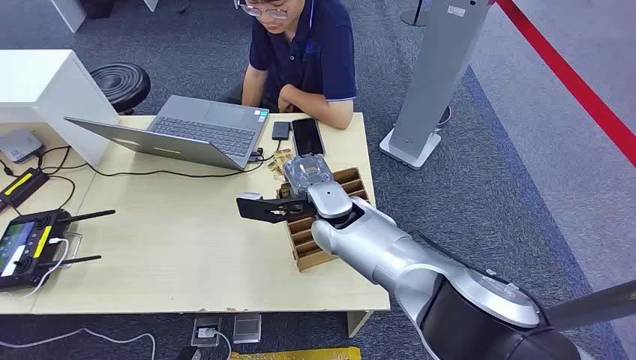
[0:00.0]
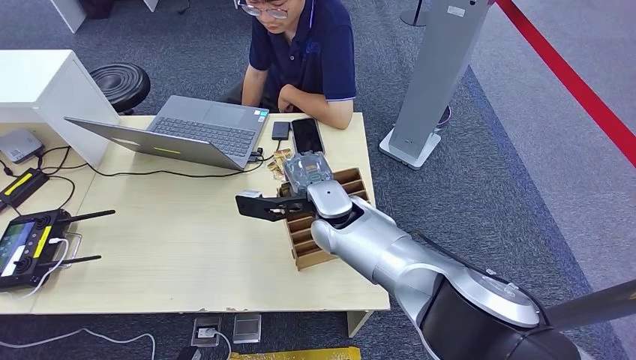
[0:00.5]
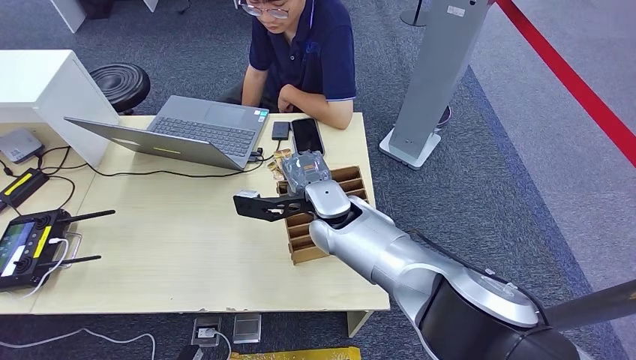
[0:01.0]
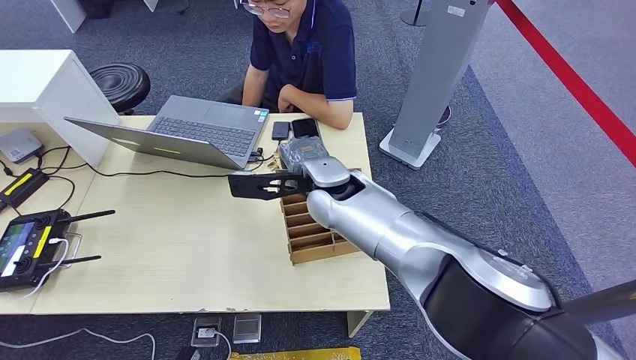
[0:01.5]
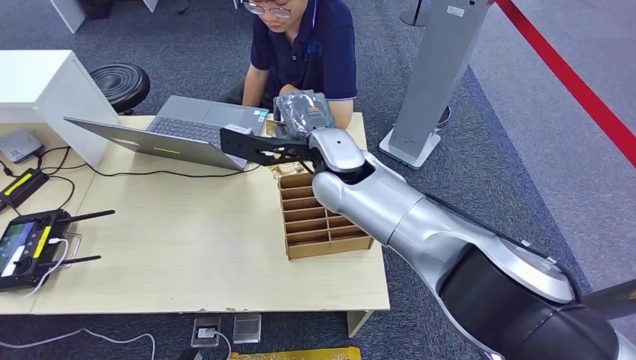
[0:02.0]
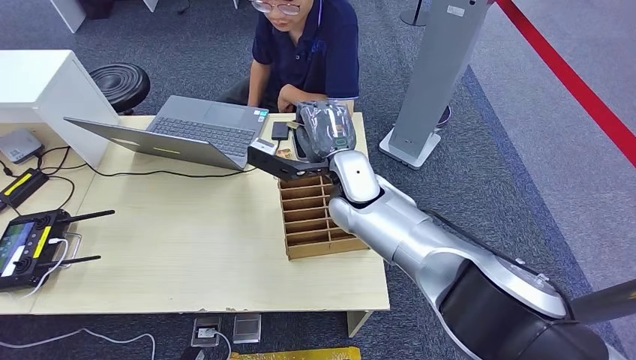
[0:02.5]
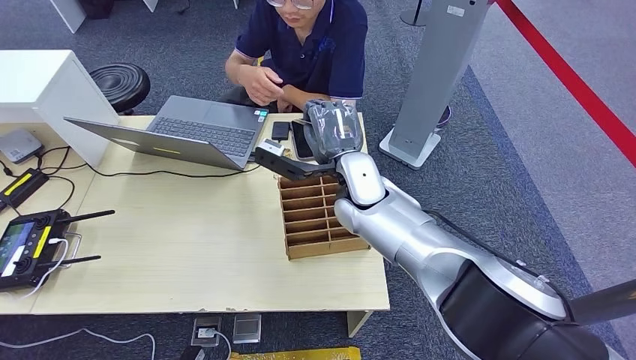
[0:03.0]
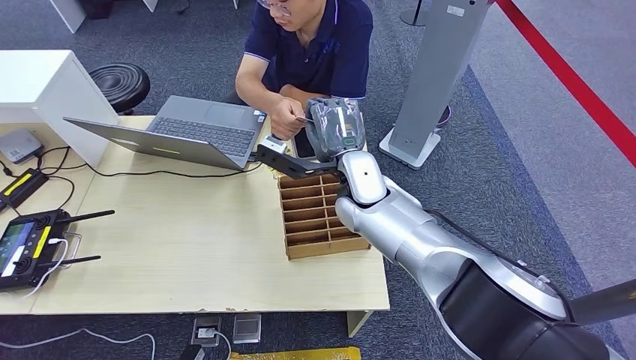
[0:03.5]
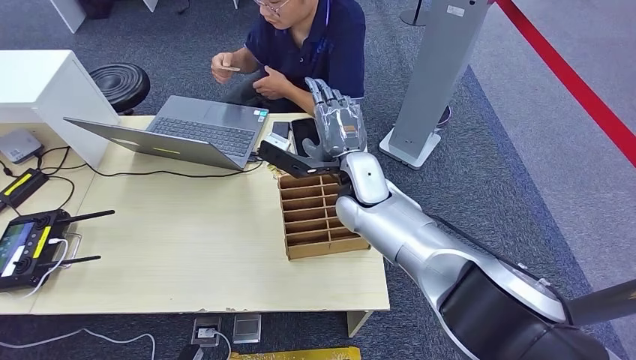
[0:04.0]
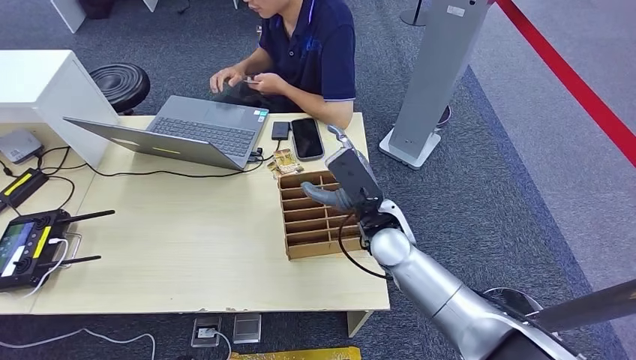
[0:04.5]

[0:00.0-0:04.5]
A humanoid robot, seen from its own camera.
Step, 0:00.0 to 0:01.5: Pick up the room card from the card holder.
Step, 0:02.5 to 0:04.5: Hand the room card to the target.
0:02.0 to 0:04.5: The right hand heads downward, to the right and backward, covering some 15 cm.

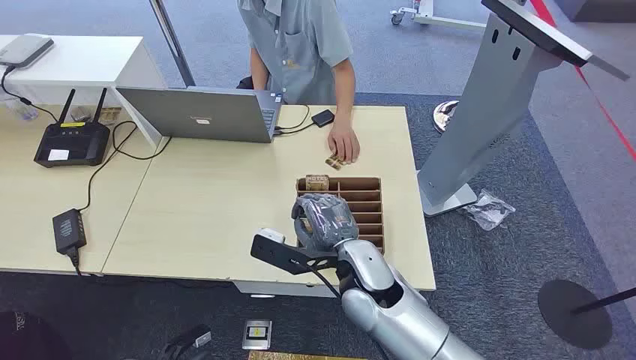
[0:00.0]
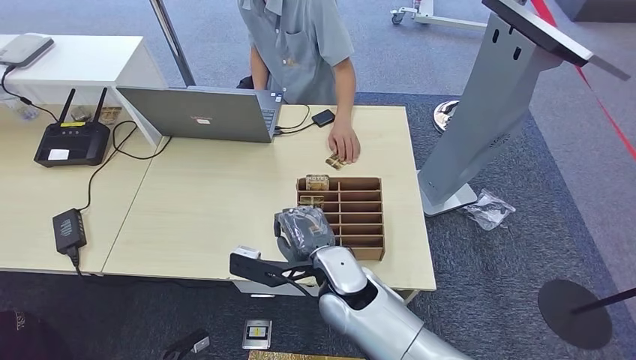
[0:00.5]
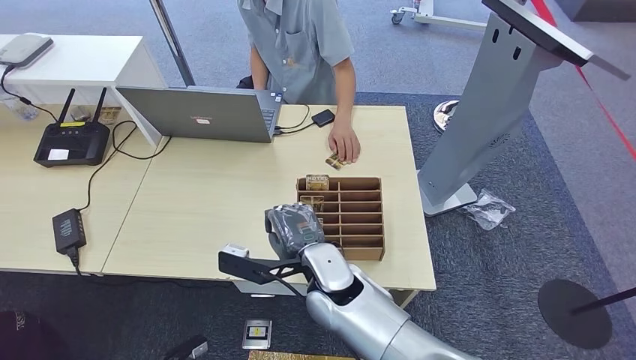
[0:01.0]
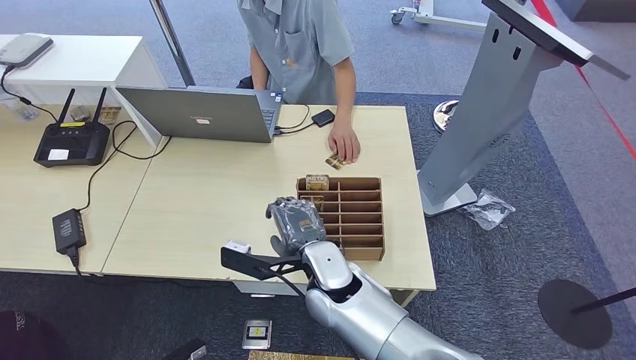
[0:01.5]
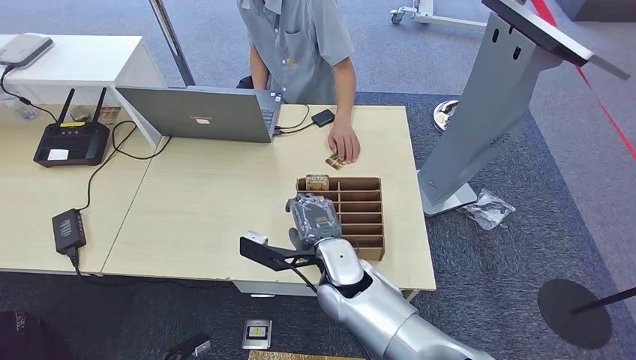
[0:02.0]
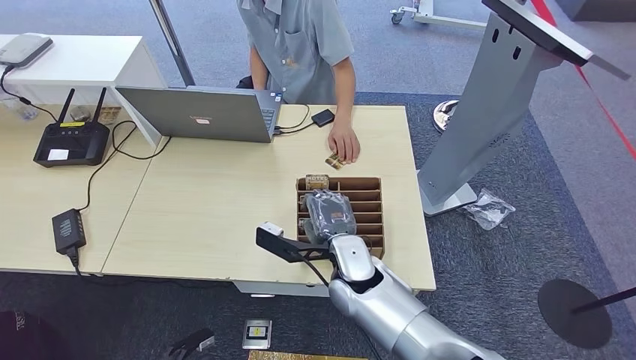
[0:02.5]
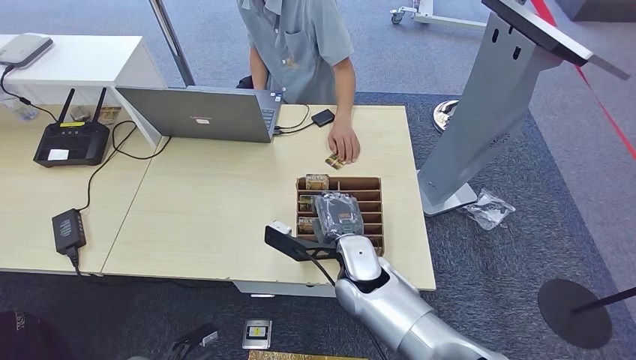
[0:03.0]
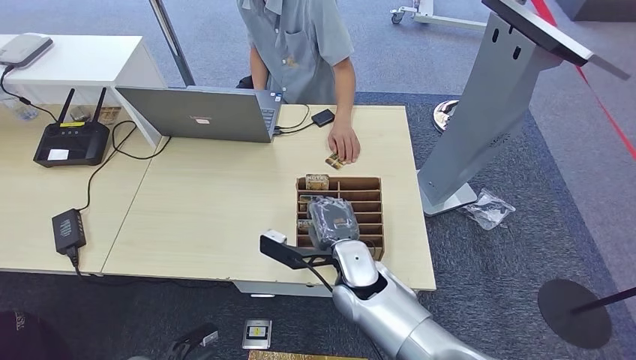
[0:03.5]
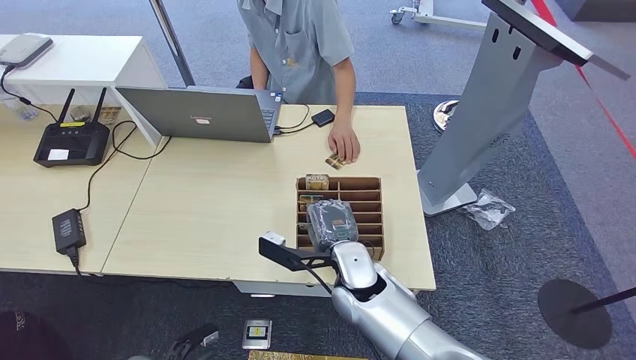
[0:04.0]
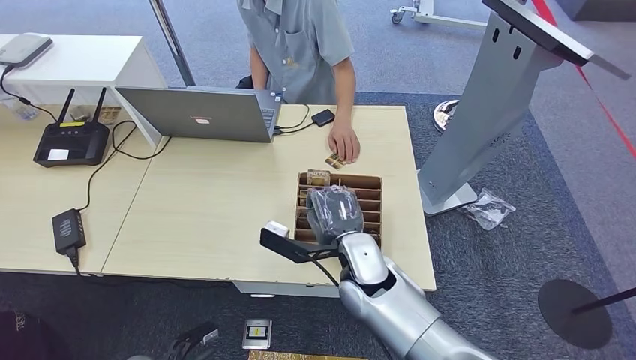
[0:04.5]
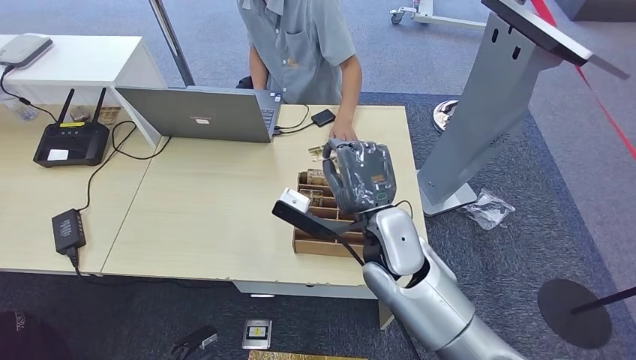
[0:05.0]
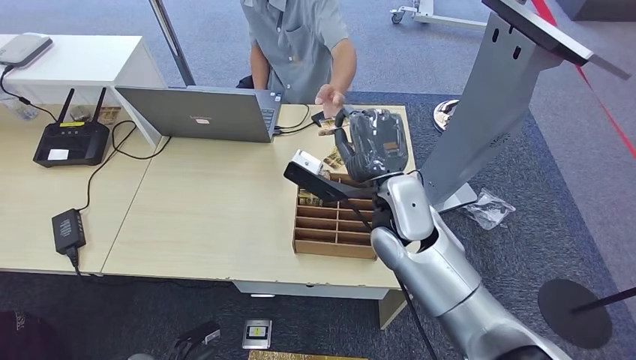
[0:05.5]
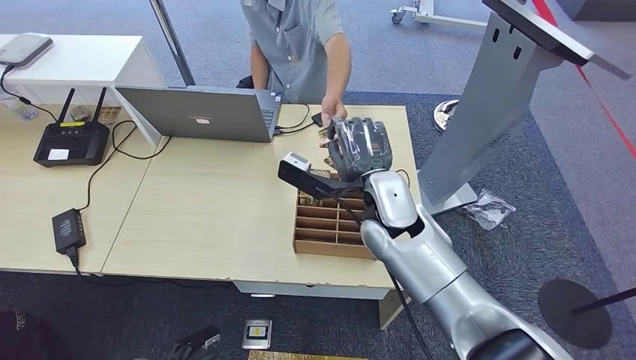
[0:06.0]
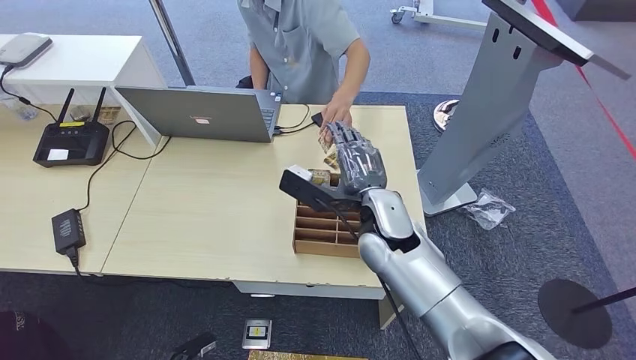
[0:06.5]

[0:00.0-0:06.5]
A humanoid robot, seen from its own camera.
Step, 0:00.0 to 0:05.0: Pick up the room card from the card holder.
Step, 0:05.5 to 0:06.5: Hand the room card to the target.
0:02.0 to 0:04.5: The hands move only a little.
0:04.5 to 0:06.5: The right hand is displaced upward by approximately 5 cm.
